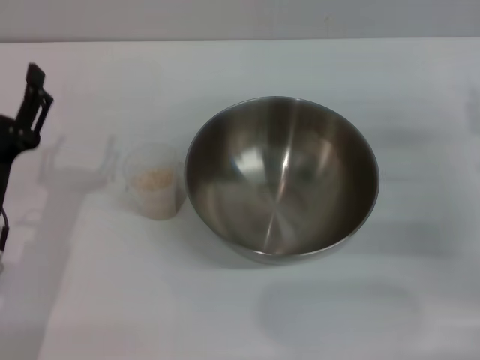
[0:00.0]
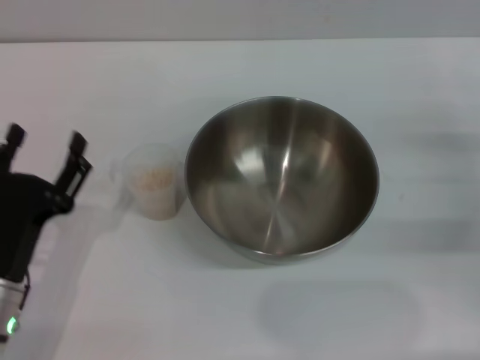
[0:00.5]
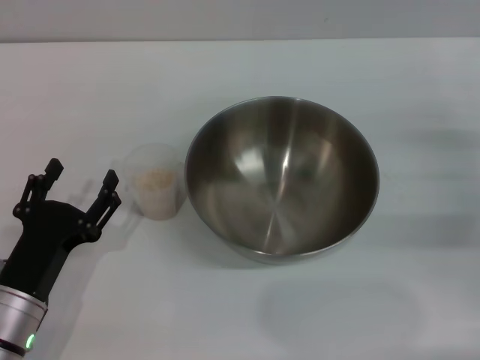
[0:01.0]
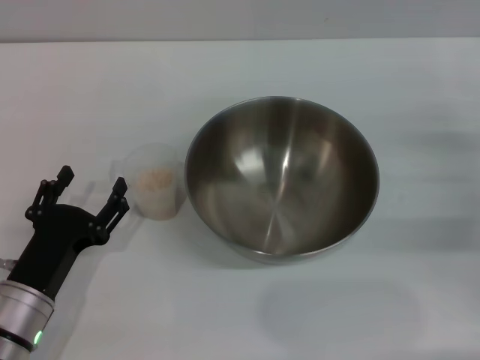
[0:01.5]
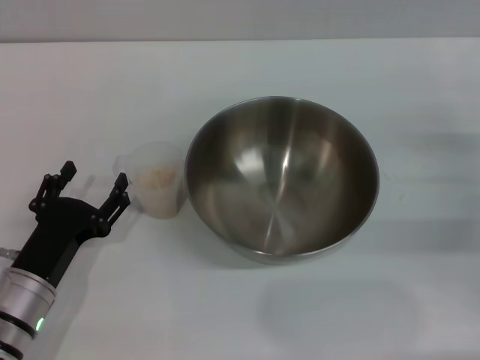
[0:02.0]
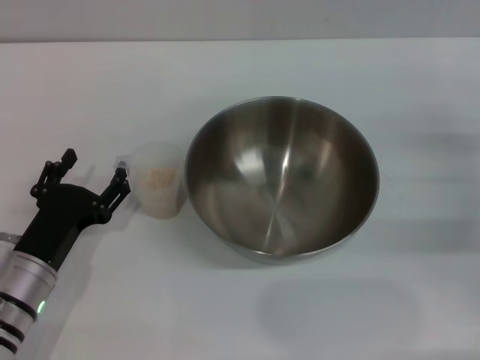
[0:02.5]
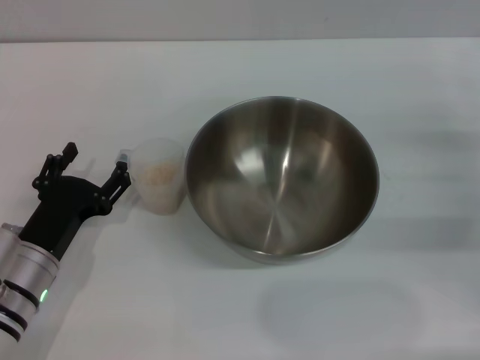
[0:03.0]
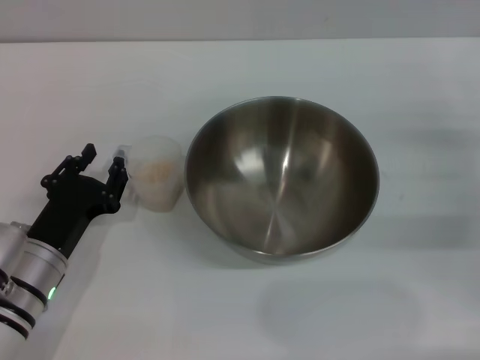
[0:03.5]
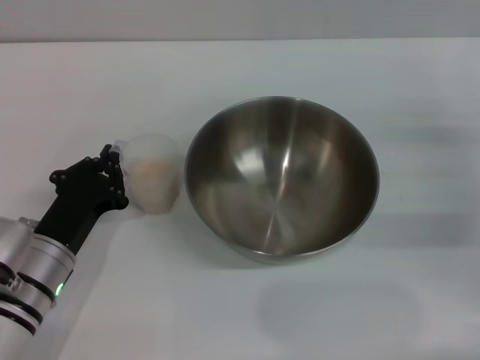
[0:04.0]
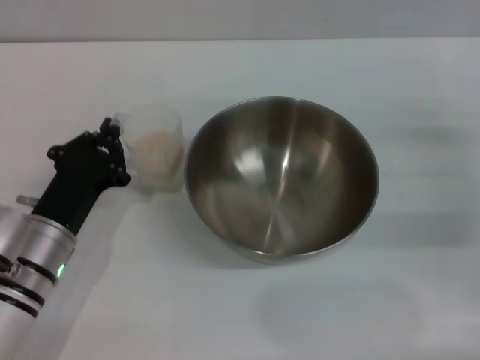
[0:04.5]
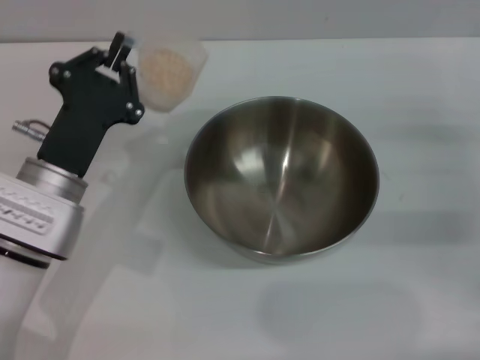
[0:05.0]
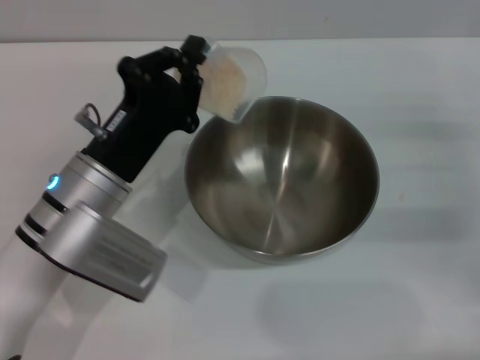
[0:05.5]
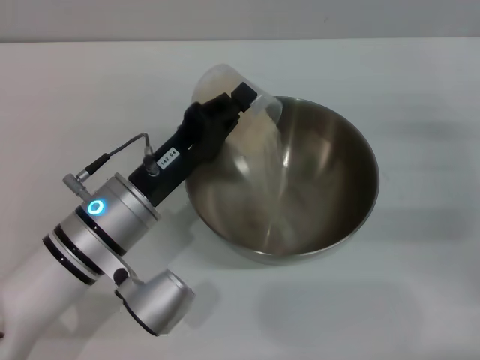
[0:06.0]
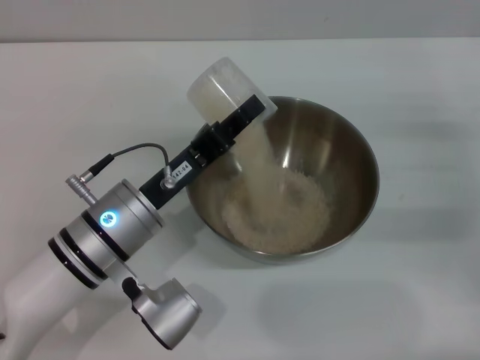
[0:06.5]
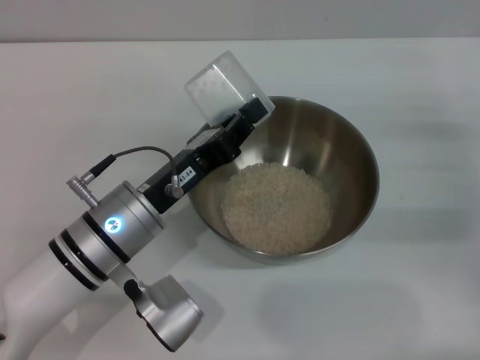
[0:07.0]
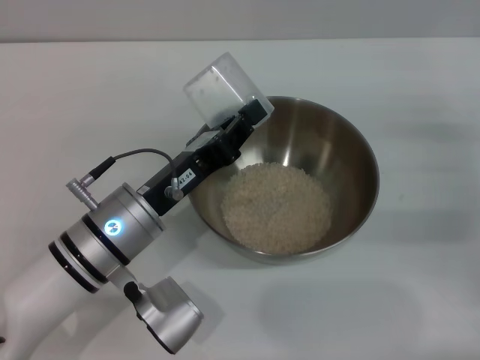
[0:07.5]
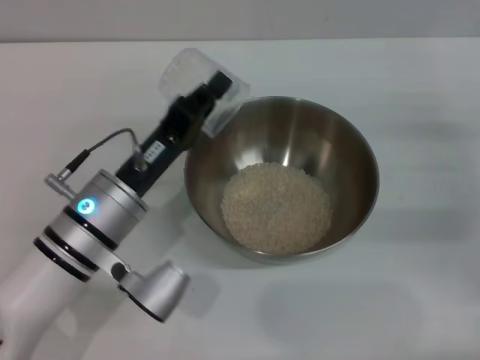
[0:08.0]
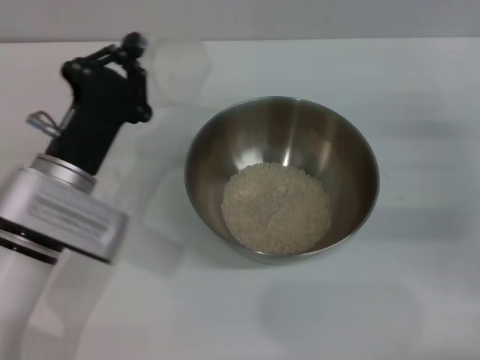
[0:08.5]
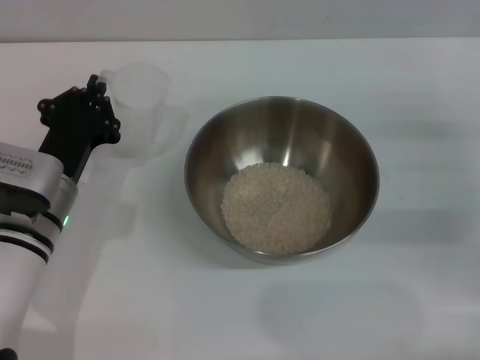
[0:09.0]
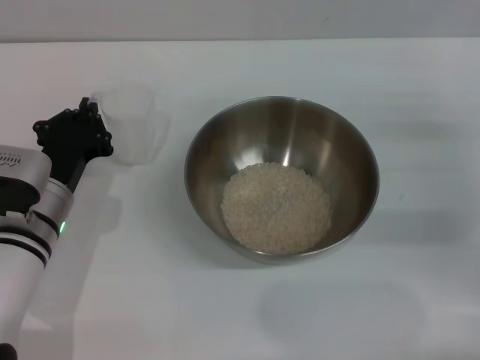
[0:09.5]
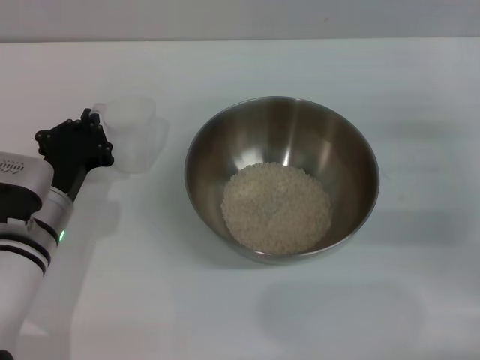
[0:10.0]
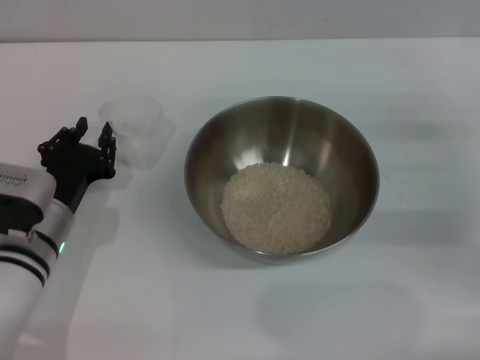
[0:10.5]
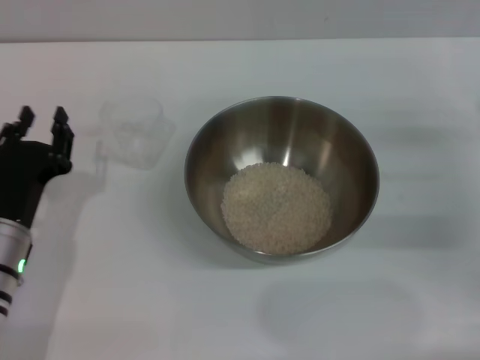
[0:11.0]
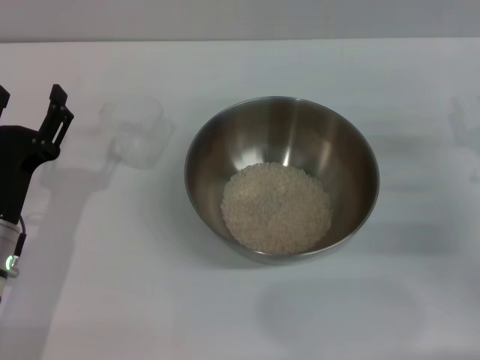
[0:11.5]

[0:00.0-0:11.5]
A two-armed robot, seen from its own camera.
Task of the whole recording: Place the bowl in the middle of the table with one hand and pour the rice from the grain cup into it with the other hand.
Step, 0:00.0 to 0:04.5: Pick up the cup with rice in it with the left gripper.
Step, 0:05.0 to 0:07.5: Pour the rice from the cup into the bowl with the left gripper.
Step, 0:08.0 to 0:10.5: Place the cup on the table with the left gripper.
0:00.0 to 0:02.0: The left gripper shifts approximately 5 cm downward.
0:02.0 to 0:04.0: The left gripper closes.
0:04.0 to 0:06.0: The left gripper goes roughly 10 cm to the right and upward.
0:07.5 to 0:09.5: The left gripper moves to the left, about 5 cm.
0:09.5 to 0:11.5: The left gripper goes some 5 cm backward, and opens up.
